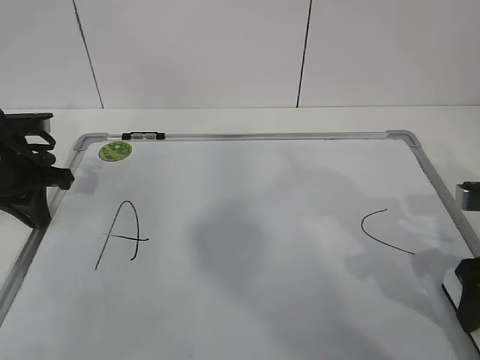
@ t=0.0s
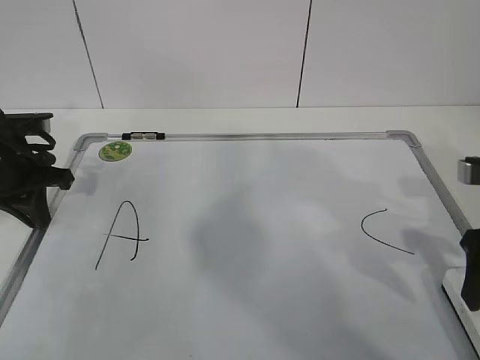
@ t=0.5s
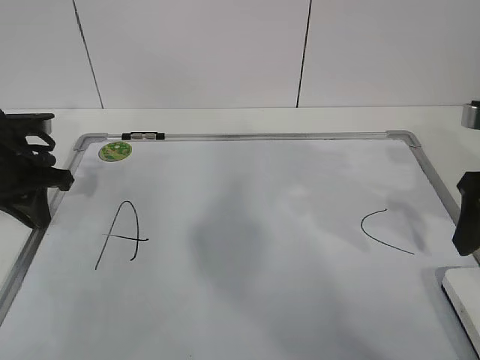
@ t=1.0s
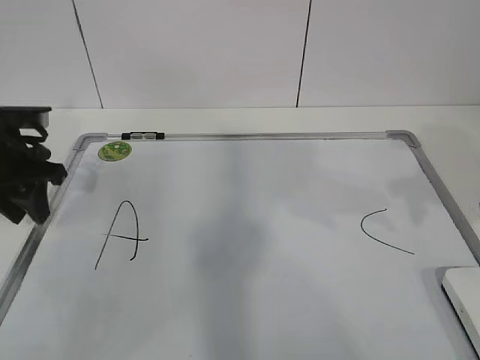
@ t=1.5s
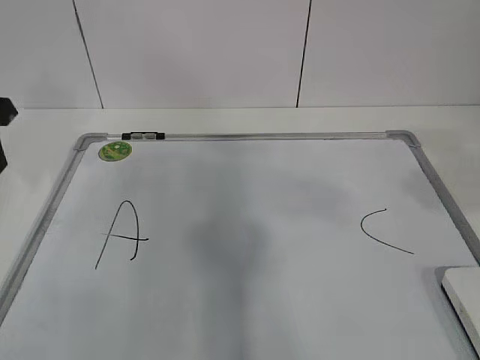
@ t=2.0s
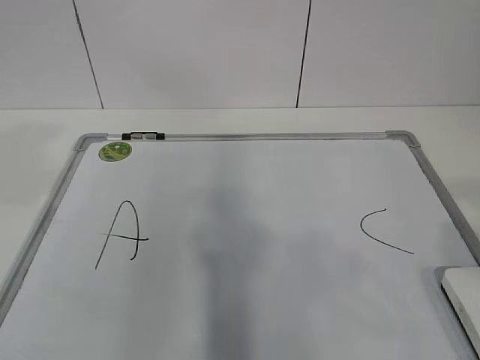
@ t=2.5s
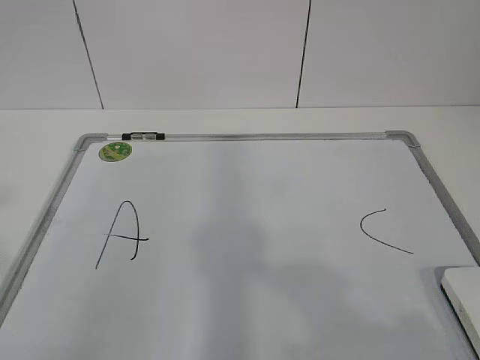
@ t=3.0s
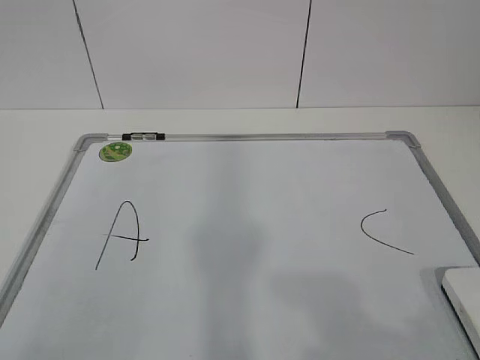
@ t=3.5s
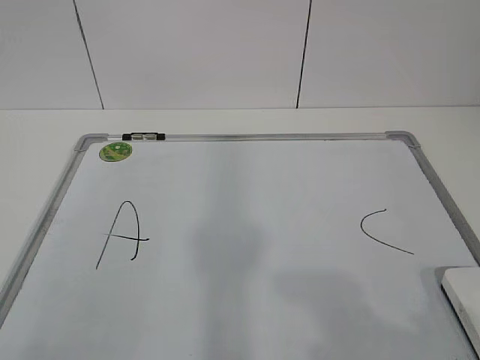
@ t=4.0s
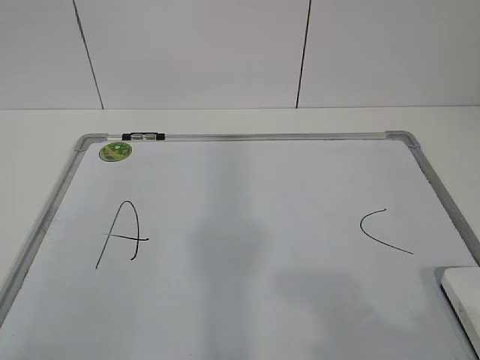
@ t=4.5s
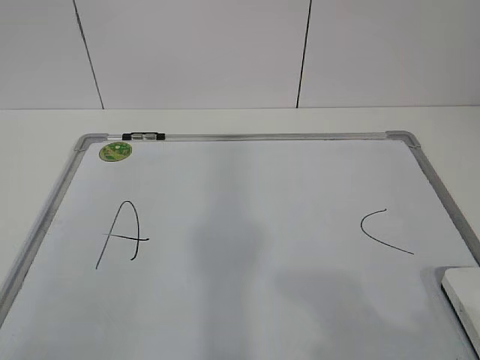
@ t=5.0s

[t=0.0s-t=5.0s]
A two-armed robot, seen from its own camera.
Task of the whole recording: pick up the eraser on the blackboard and erase the letter "B".
t=0.0s to t=2.5s: The left gripper moves upward and backward, about 30 cm, and opens up. The right gripper heads backward and upward, covering about 30 cm.
t=2.5s to t=5.0s: The right gripper is displaced downward by roughly 10 cm, while the left gripper travels backward and downward by some 20 cm.

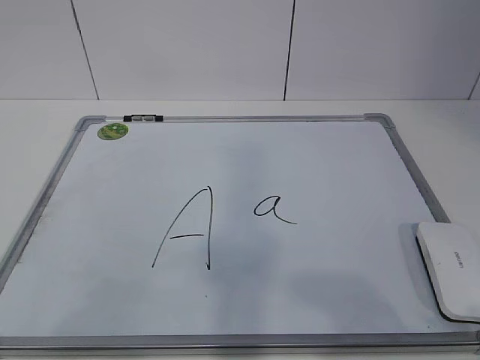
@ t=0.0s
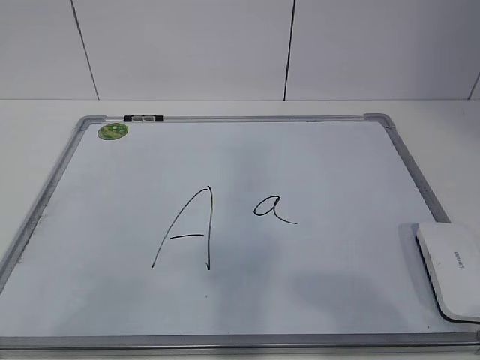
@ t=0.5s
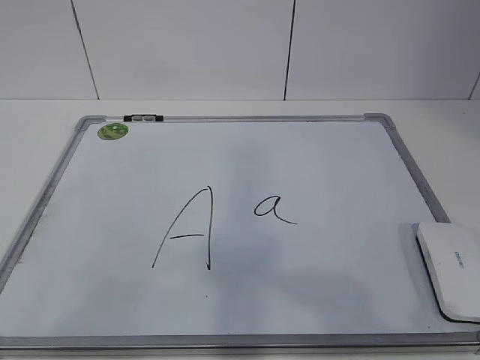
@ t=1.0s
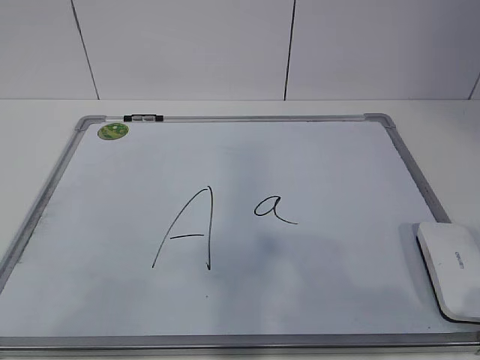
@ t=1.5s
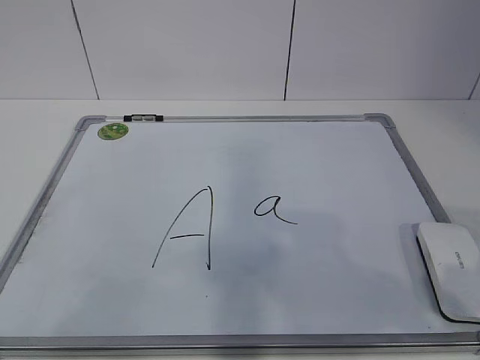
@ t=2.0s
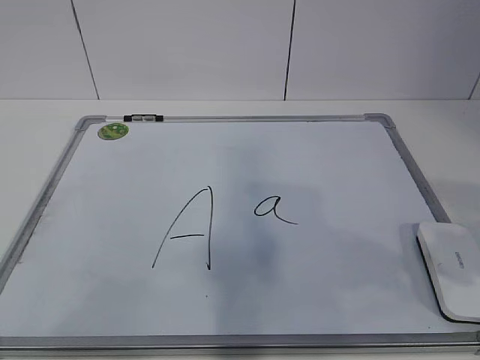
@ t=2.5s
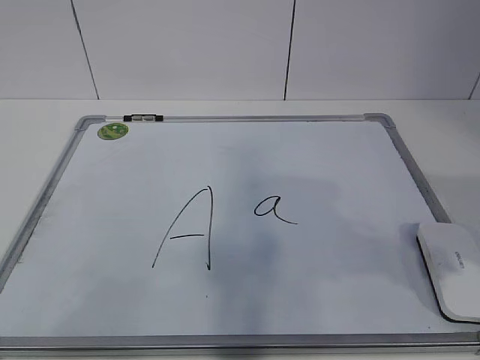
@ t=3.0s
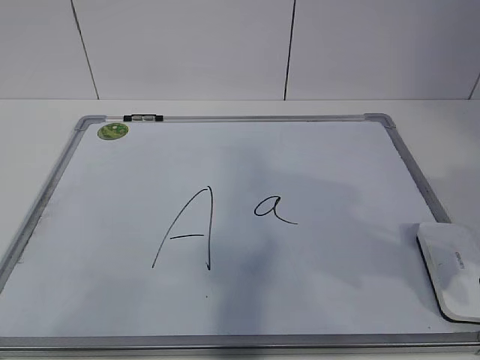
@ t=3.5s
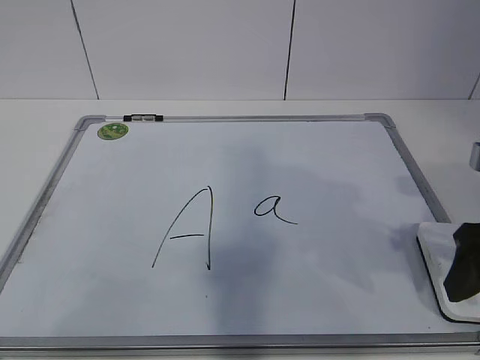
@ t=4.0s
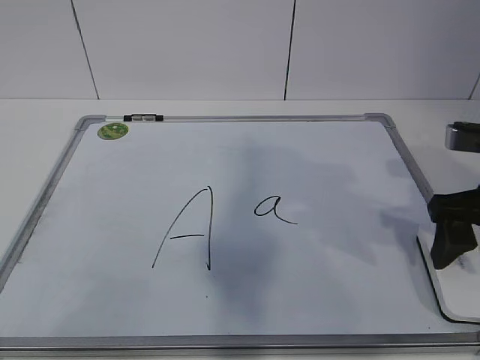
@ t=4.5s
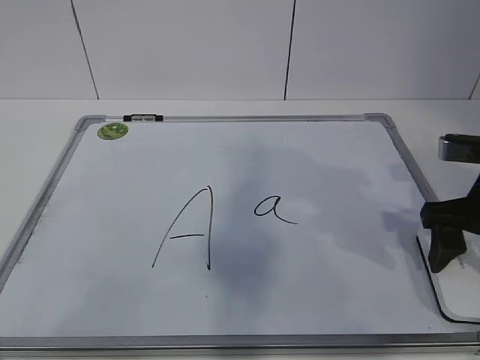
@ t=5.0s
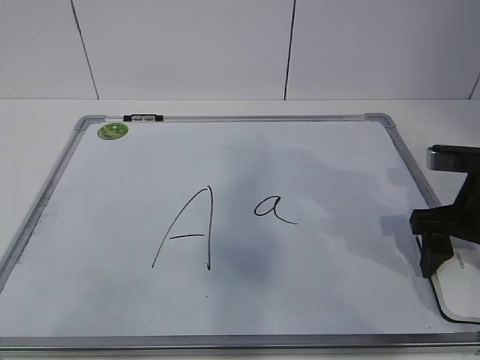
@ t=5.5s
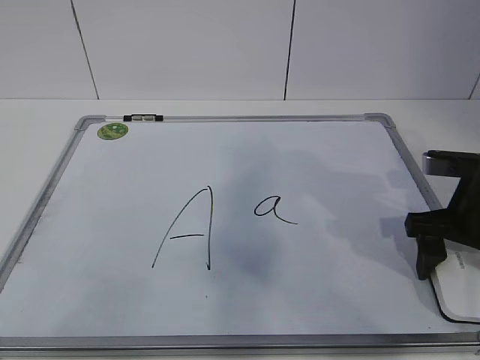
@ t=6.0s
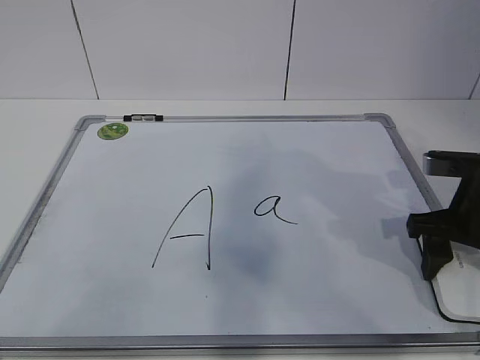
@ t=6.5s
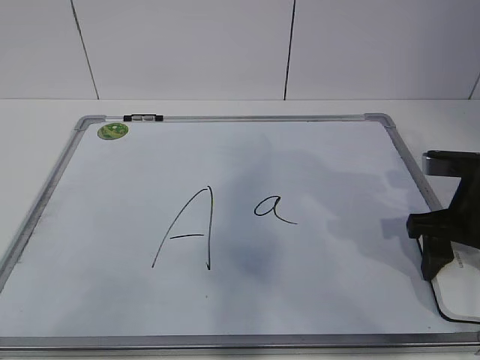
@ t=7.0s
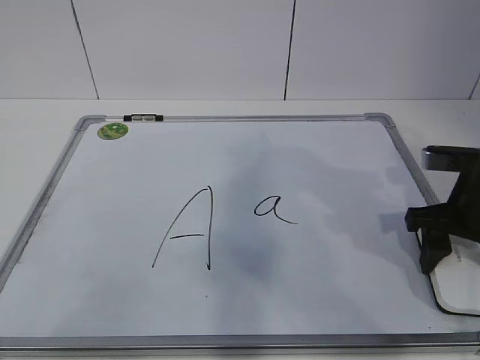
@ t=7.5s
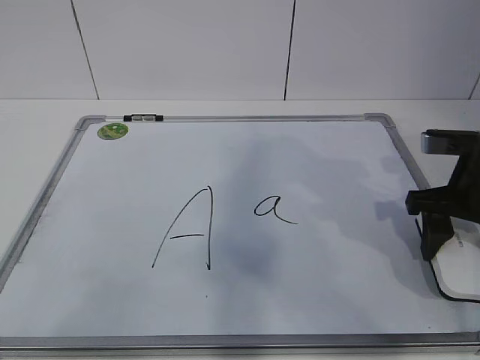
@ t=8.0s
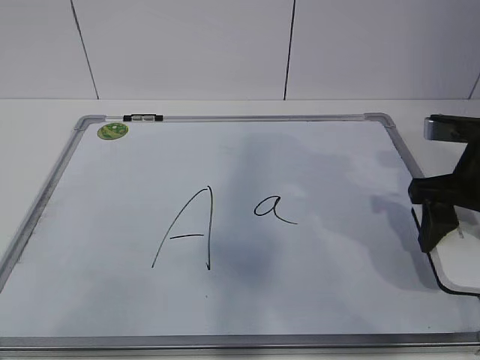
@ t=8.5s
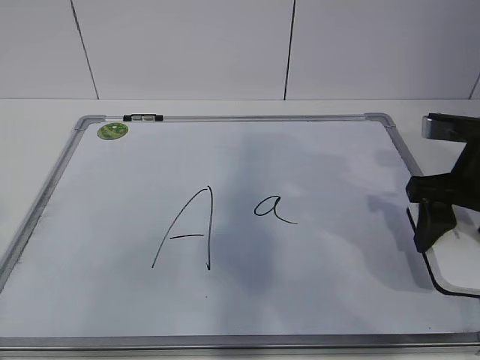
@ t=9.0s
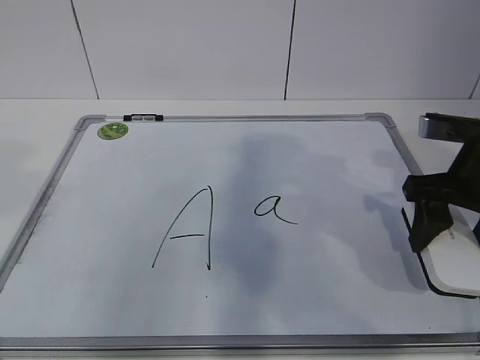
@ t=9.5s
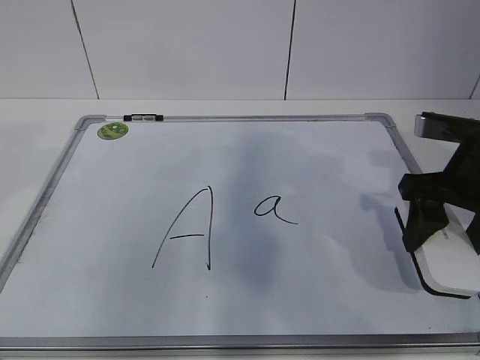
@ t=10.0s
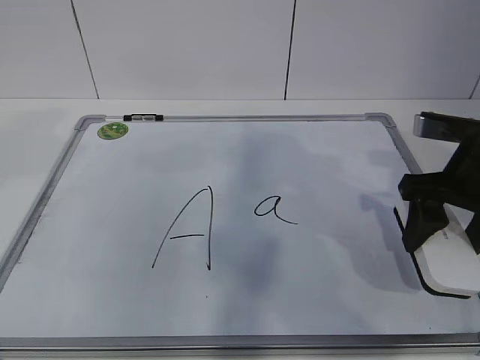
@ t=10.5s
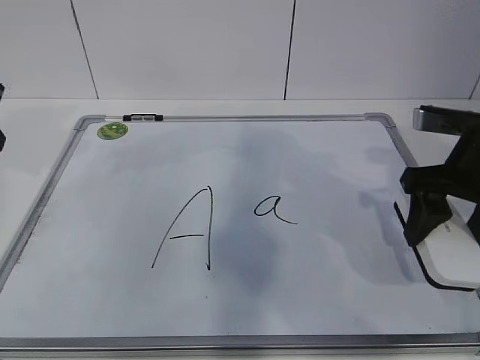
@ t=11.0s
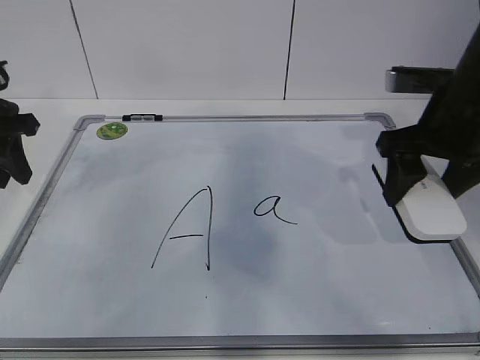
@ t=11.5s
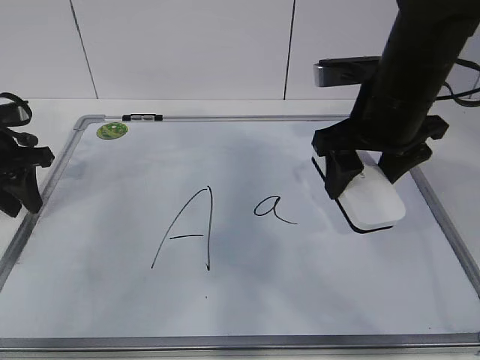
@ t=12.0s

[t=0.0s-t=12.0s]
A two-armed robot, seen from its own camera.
Task of the whole recording: pick up the eraser on the blackboard and erase the letter "a".
Step, t=0.0s to t=6.0s: Grab the eraser with your right hand.
Step, t=6.5s to t=10.5s: Hold the drawing board steady with your left hand.
t=2.0s to t=4.0s: The right gripper is displaced forward by some 10 cm, and opens up.
t=4.0s to t=6.0s: The right gripper moves forward and downward, about 10 cm.
t=6.0s to t=8.0s: The right gripper closes up.
t=10.0s to t=12.0s: The left gripper heads forward and downward, covering roughly 30 cm, while the right gripper shifts about 10 cm to the left.

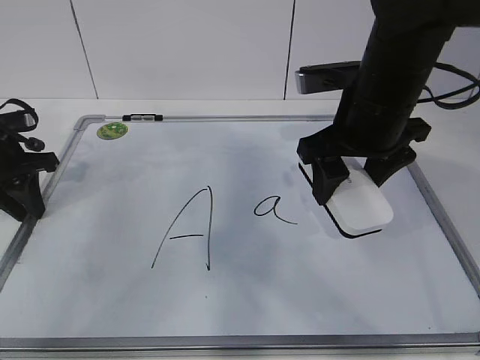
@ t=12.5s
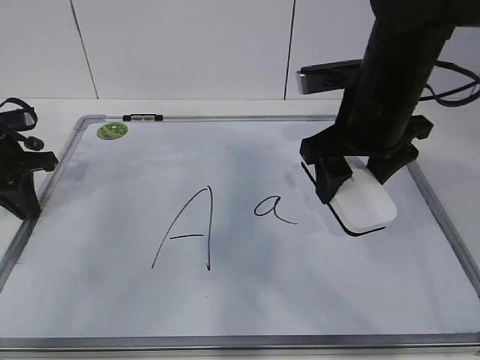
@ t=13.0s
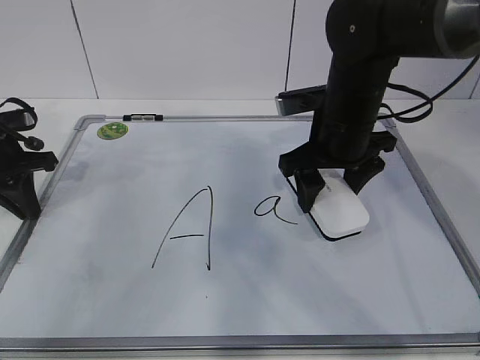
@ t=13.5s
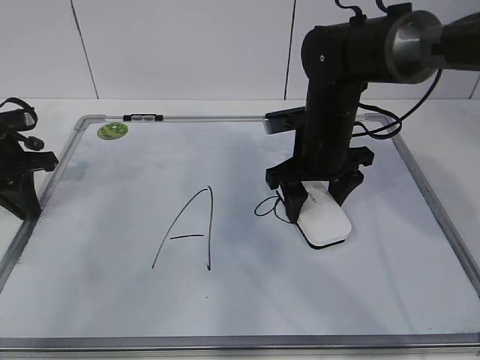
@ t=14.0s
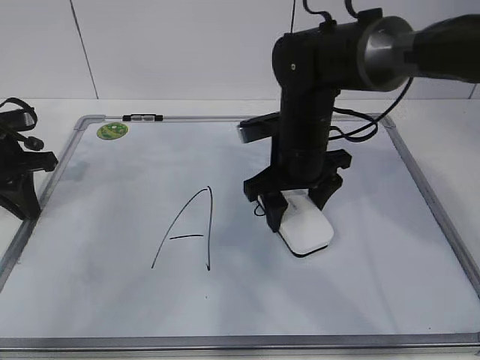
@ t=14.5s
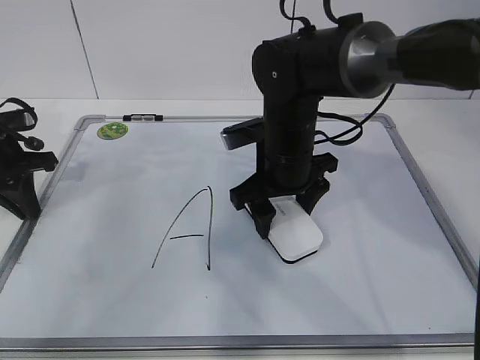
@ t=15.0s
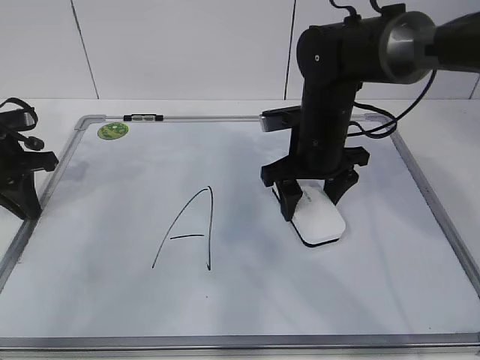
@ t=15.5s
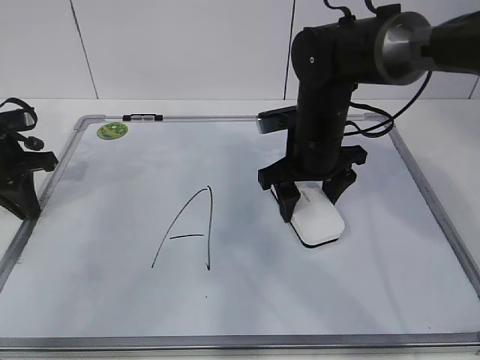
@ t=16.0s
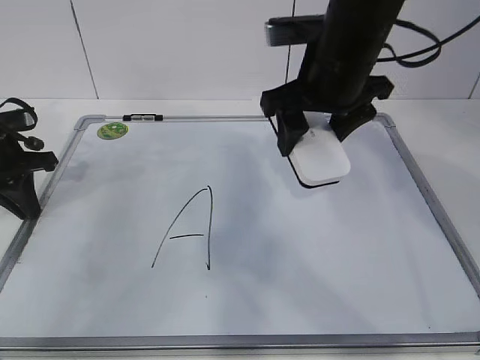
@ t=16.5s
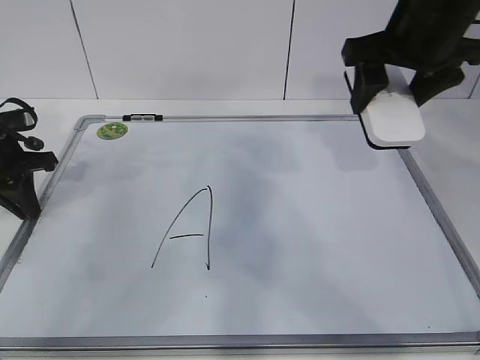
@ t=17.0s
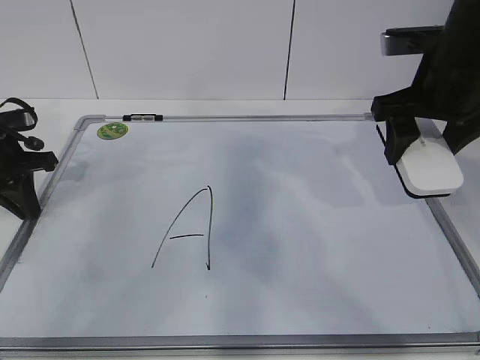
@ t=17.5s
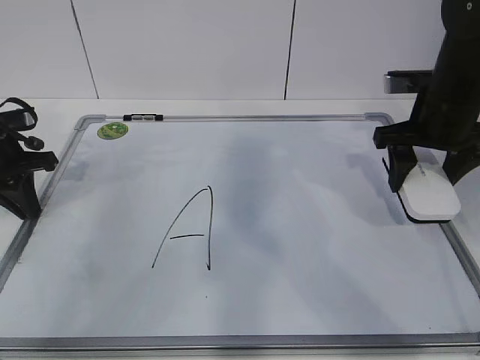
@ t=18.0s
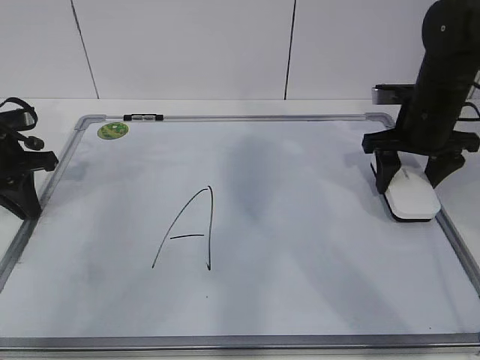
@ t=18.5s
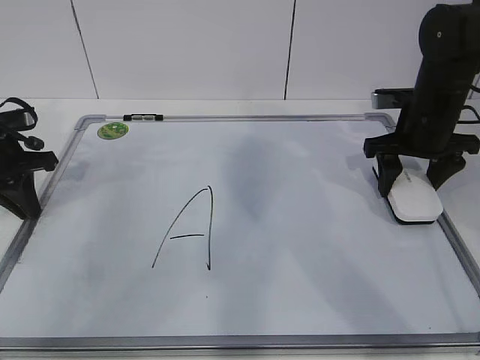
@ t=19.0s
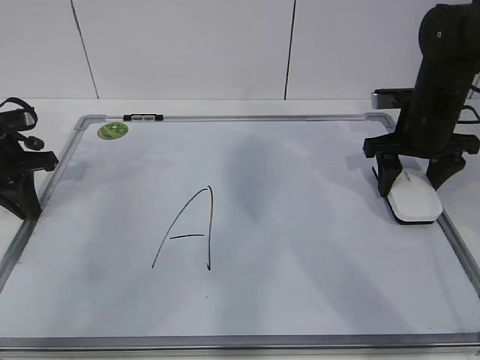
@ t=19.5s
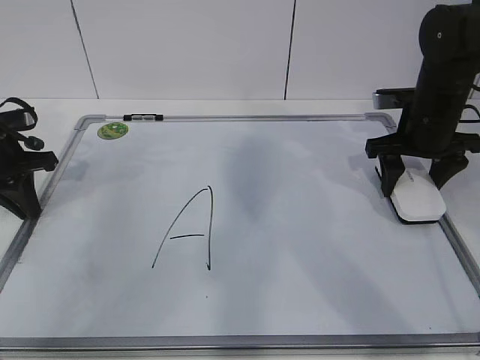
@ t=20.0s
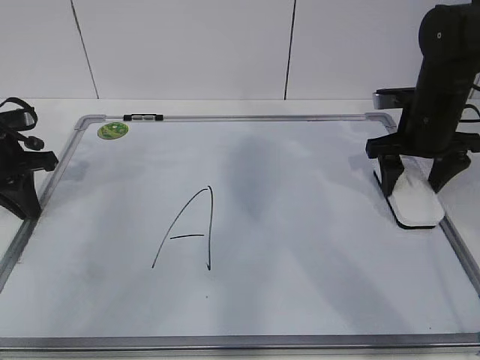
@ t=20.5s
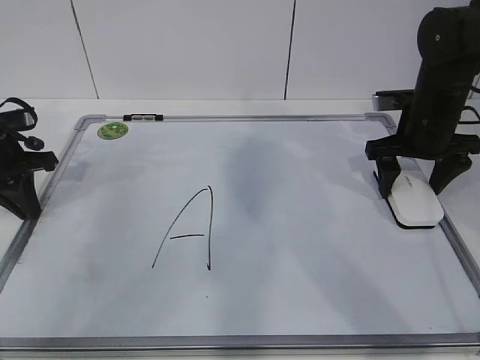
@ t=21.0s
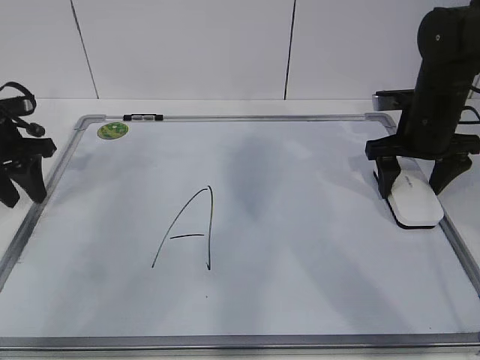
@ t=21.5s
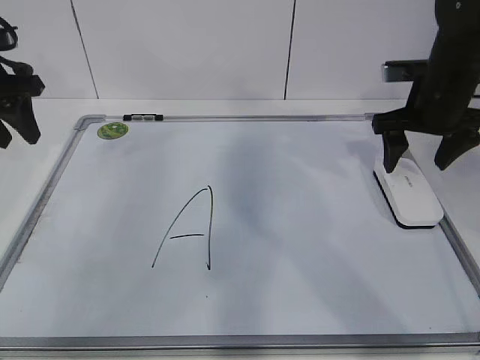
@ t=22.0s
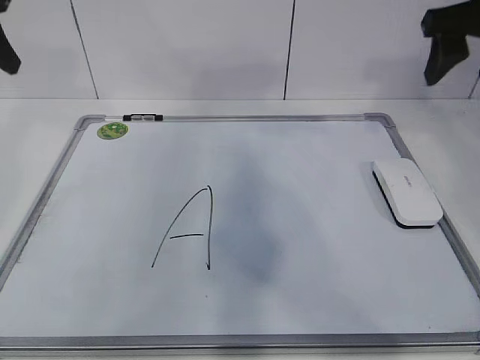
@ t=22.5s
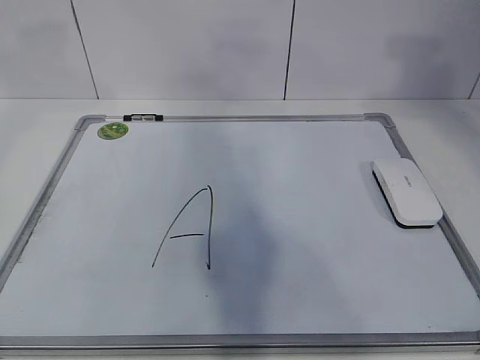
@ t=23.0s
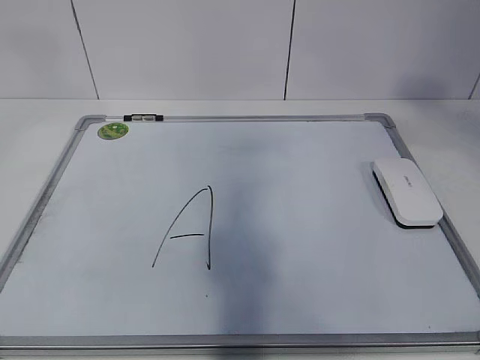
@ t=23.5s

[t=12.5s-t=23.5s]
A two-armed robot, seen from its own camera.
Task of the whole recording: pick up the eraser on the blackboard and erase the letter "a".
Step, t=13.5s to t=17.0s: Put down the eraser with your right hand.
t=12.5s to t=14.5s: The right gripper shifts some 10 cm downward and to the left, while the left gripper closes up.
t=14.5s to t=16.0s: There are only small adjustments of the grippers.
t=16.0s to t=18.0s: The right gripper is displaced to the right and upward by roughly 15 cm.
t=18.0s to t=20.0s: The right gripper changes place by about 5 cm.
t=20.0s to t=21.5s: The right gripper opens up, while the left gripper opens up.
t=21.5s to t=23.5s: Both grippers move upward and backward, some 35 cm. The right gripper closes its fingers.
